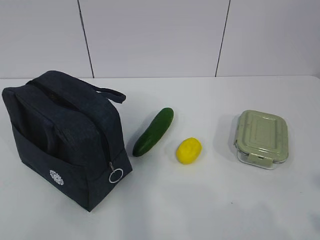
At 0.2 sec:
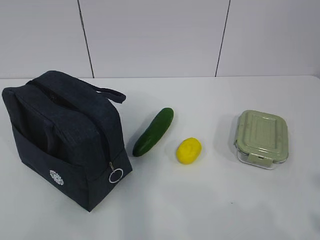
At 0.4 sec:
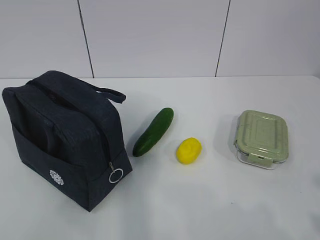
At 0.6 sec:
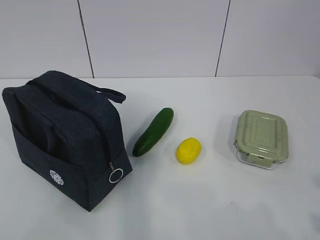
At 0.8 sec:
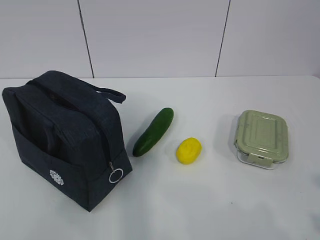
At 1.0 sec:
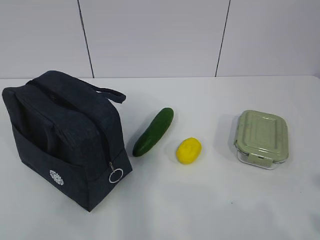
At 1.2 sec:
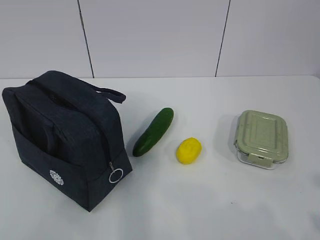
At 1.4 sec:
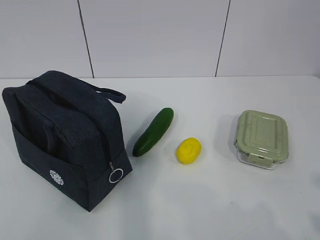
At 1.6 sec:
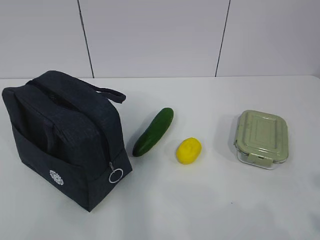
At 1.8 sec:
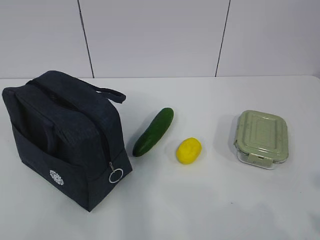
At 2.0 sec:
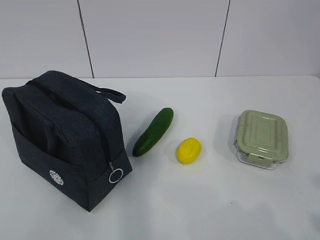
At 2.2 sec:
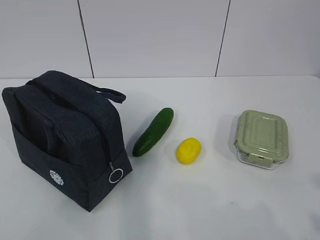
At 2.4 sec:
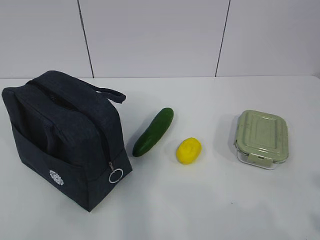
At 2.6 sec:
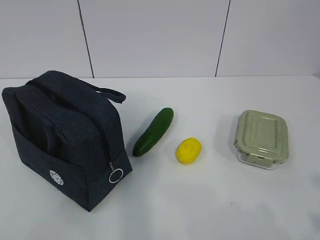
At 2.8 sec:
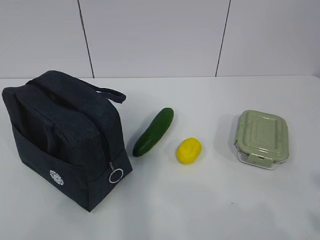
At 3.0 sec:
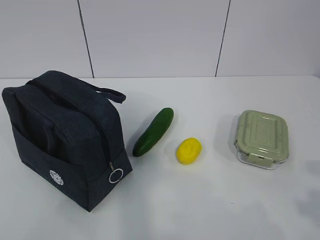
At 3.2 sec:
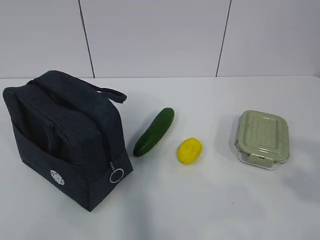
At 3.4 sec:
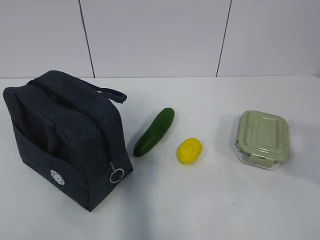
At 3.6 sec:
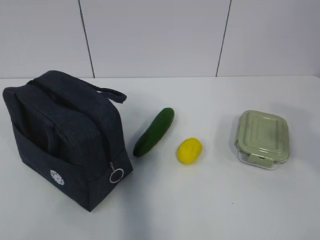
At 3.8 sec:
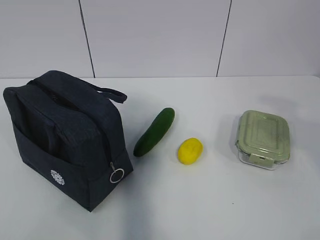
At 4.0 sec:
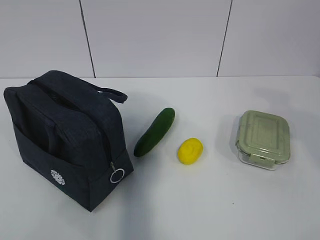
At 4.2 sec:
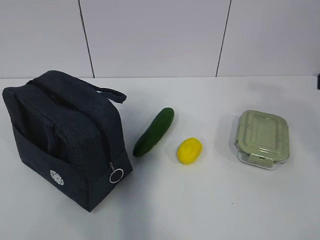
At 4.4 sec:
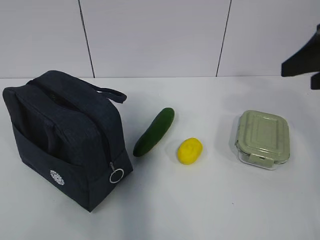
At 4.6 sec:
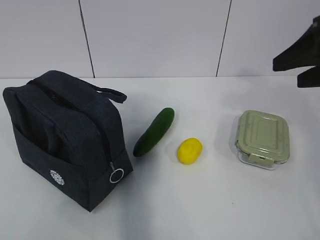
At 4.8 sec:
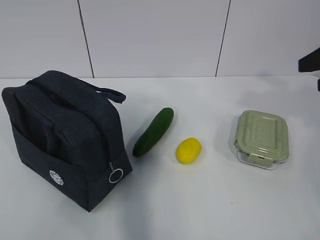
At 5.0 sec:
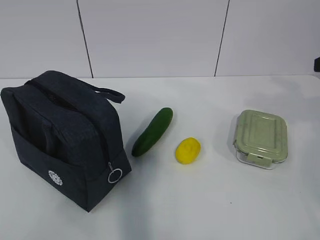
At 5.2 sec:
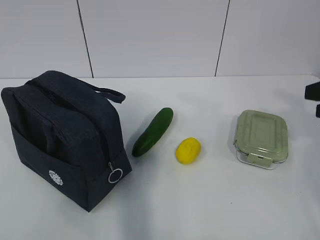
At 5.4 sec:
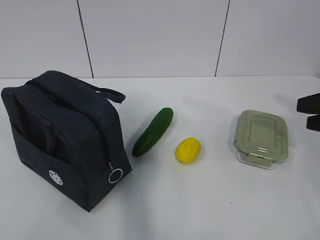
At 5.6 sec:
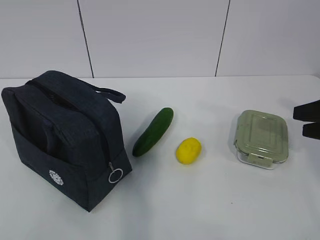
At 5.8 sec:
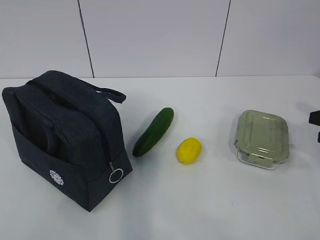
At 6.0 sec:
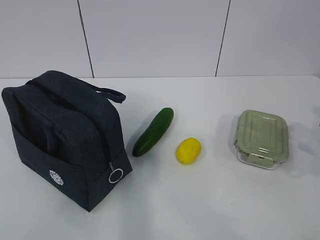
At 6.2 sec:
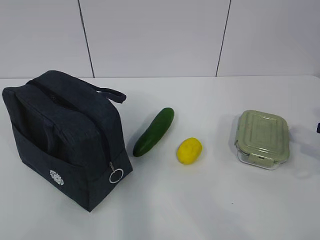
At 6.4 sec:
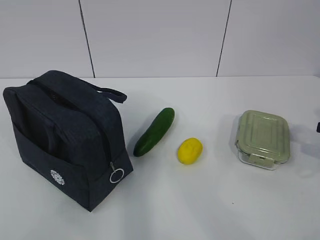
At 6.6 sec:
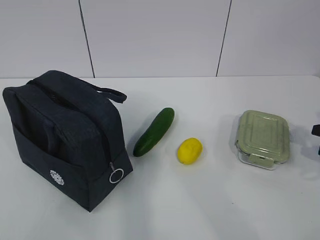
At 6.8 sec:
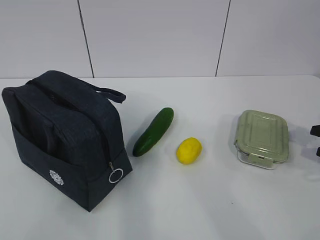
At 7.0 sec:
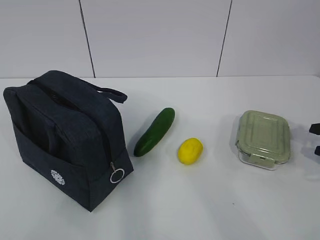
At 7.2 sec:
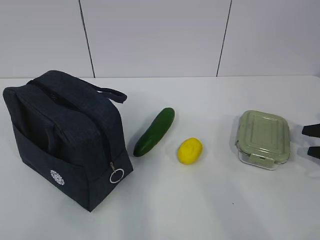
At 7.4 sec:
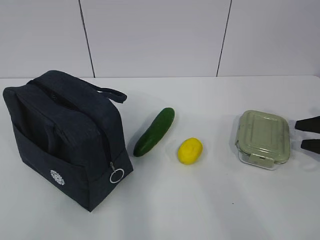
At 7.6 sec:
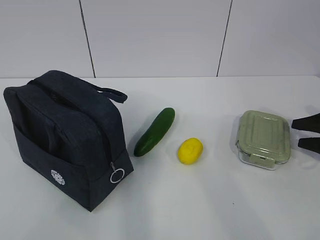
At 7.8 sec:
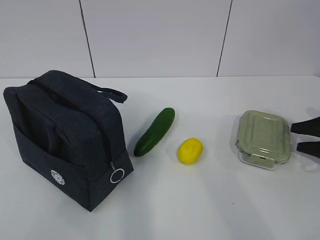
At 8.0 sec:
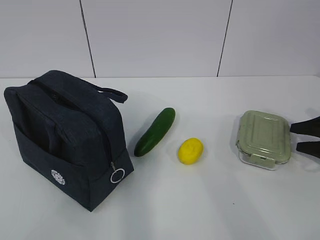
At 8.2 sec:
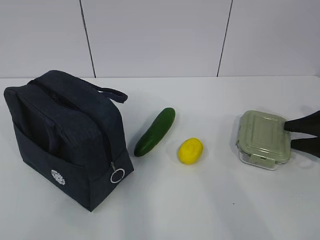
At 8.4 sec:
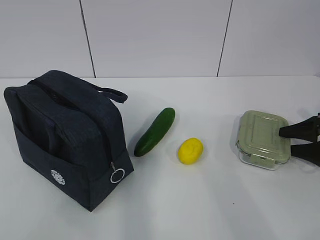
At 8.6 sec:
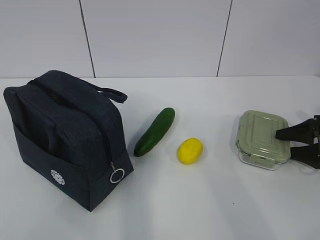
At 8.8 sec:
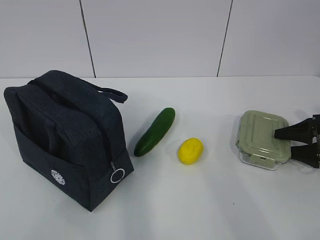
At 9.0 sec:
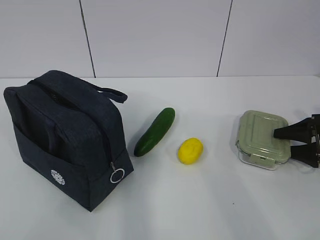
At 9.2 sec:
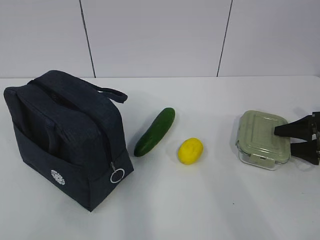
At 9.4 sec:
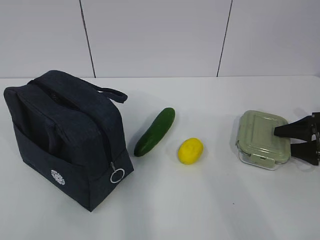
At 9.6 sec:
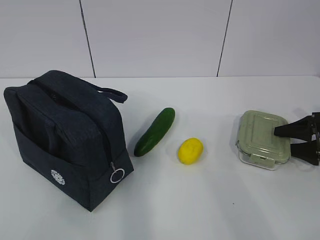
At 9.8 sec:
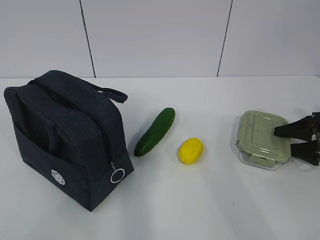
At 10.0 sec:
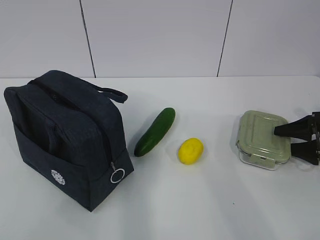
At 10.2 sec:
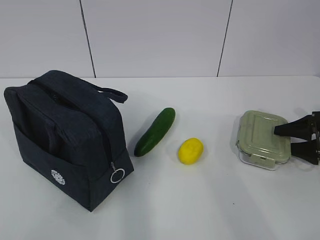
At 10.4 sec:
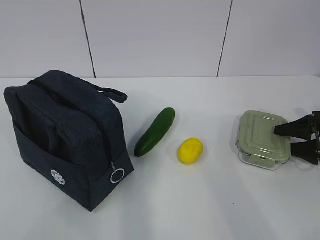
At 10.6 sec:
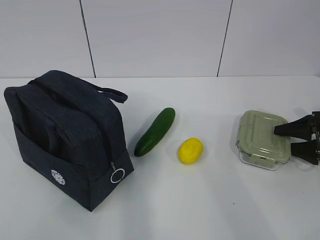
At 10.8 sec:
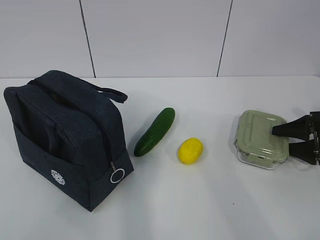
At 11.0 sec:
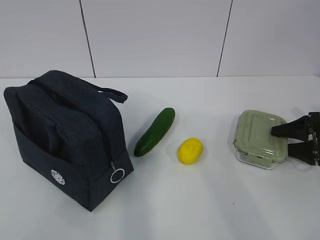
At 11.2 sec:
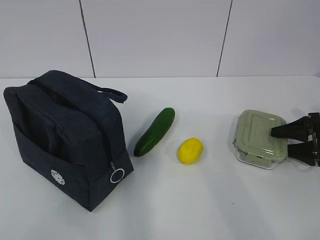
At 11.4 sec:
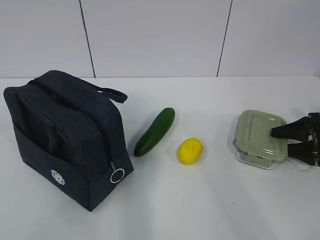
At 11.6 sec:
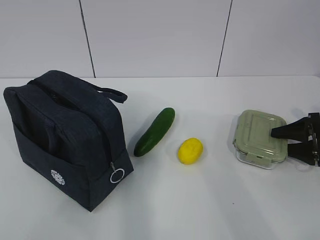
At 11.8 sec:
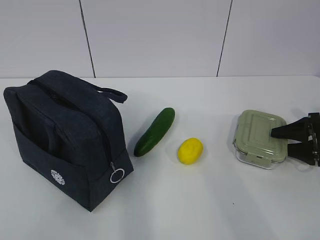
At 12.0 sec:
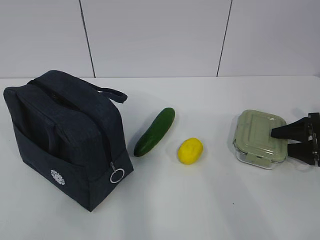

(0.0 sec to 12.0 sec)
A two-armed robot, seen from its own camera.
3.0 sec - 4.4 sec: The right gripper shifts about 25 cm forward.
4.4 sec - 6.0 sec: The right gripper shifts some 20 cm downward and to the right.
6.0 sec - 7.6 sec: The right gripper shifts about 10 cm forward and downward.
7.6 sec - 9.0 sec: There are only small adjustments of the grippers.
9.0 sec - 12.0 sec: Both grippers stay put.

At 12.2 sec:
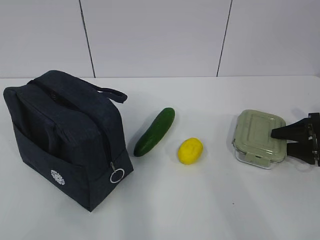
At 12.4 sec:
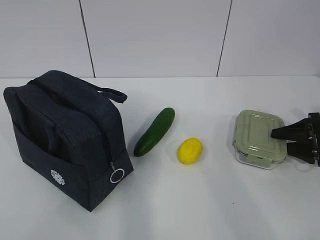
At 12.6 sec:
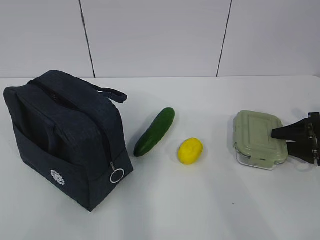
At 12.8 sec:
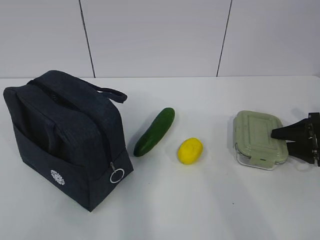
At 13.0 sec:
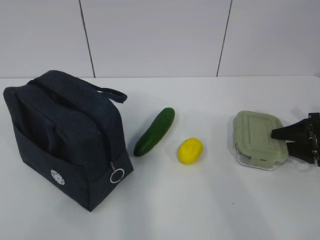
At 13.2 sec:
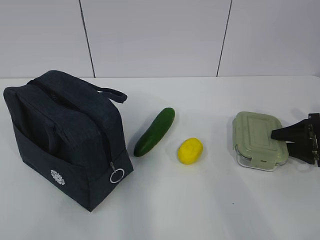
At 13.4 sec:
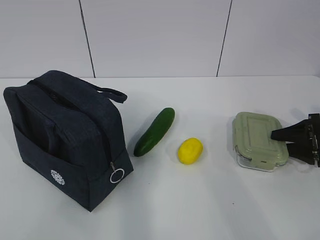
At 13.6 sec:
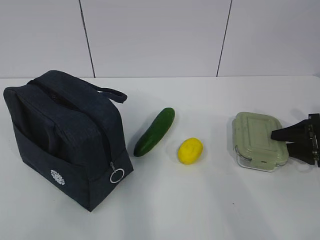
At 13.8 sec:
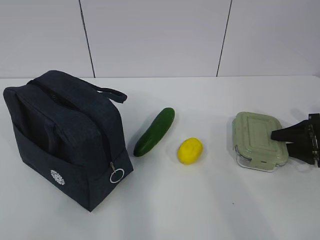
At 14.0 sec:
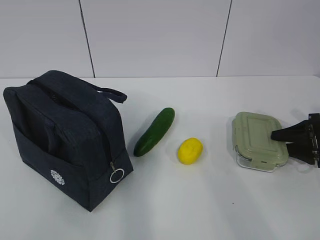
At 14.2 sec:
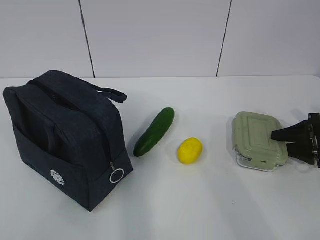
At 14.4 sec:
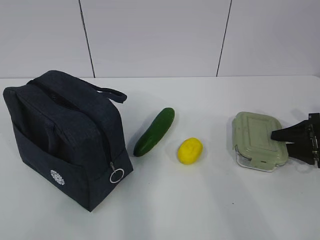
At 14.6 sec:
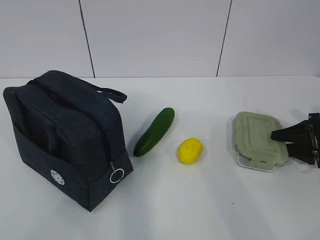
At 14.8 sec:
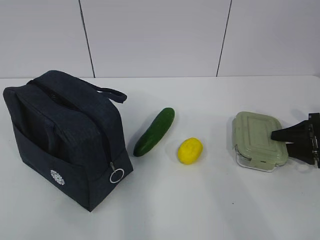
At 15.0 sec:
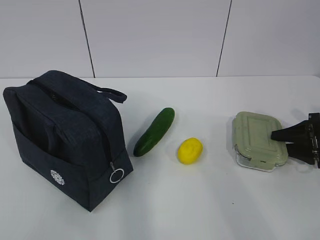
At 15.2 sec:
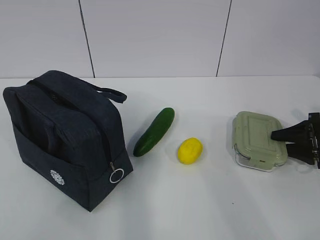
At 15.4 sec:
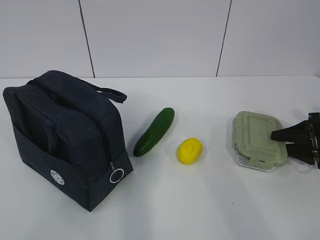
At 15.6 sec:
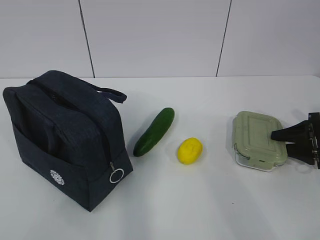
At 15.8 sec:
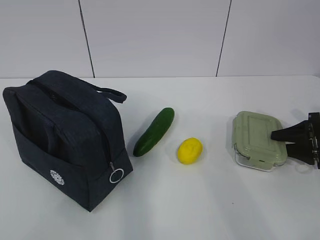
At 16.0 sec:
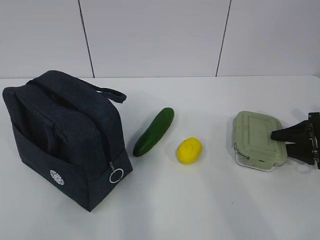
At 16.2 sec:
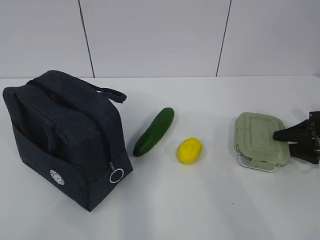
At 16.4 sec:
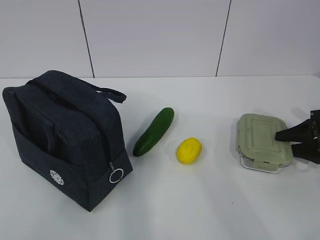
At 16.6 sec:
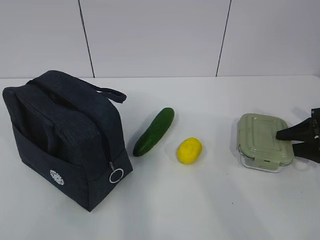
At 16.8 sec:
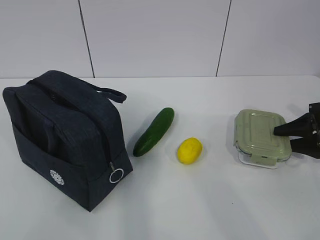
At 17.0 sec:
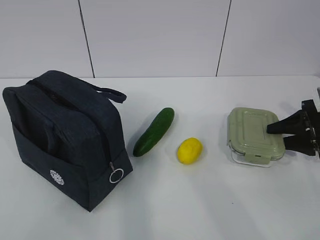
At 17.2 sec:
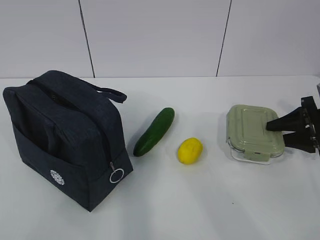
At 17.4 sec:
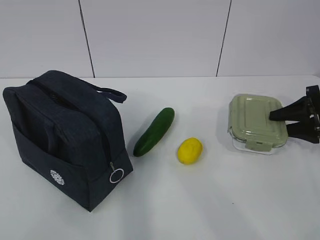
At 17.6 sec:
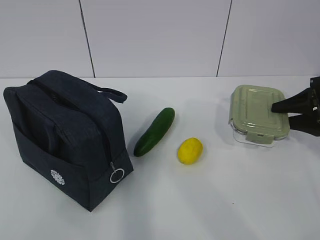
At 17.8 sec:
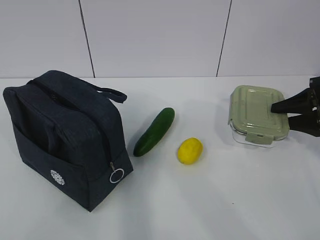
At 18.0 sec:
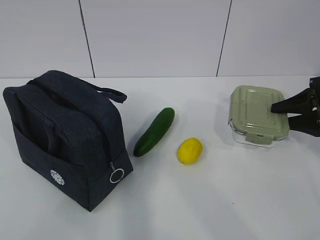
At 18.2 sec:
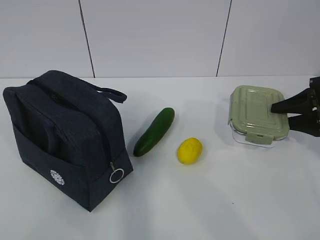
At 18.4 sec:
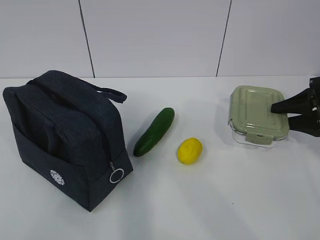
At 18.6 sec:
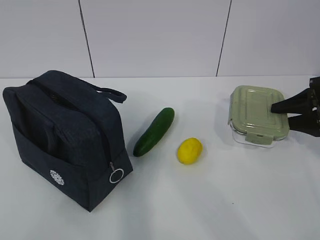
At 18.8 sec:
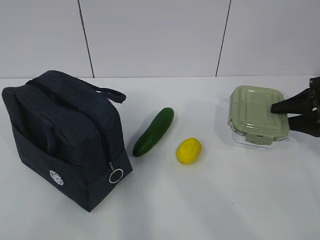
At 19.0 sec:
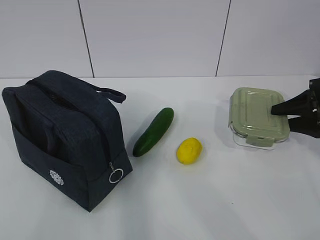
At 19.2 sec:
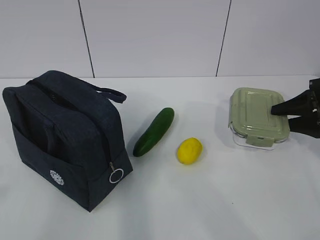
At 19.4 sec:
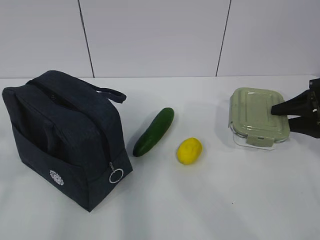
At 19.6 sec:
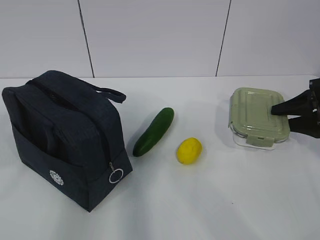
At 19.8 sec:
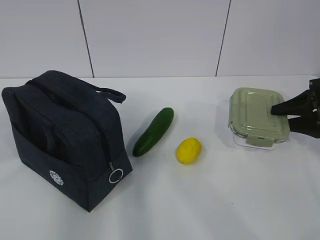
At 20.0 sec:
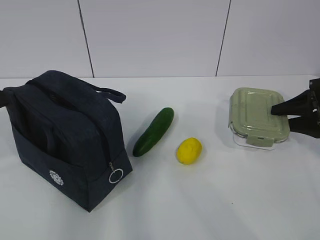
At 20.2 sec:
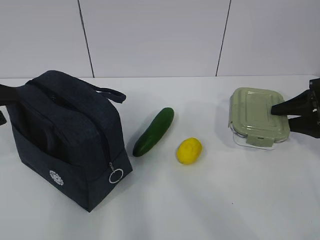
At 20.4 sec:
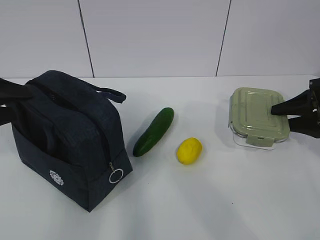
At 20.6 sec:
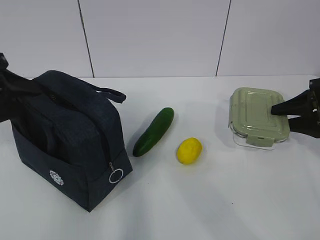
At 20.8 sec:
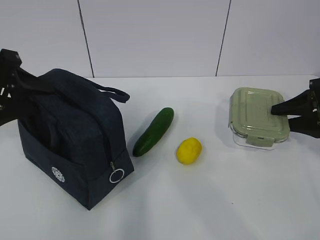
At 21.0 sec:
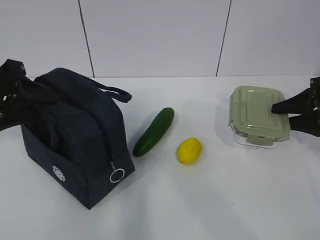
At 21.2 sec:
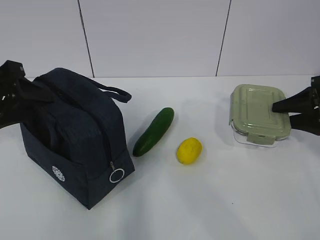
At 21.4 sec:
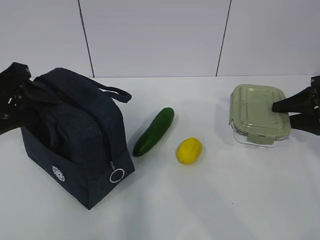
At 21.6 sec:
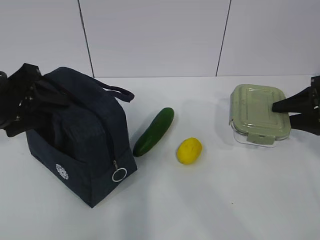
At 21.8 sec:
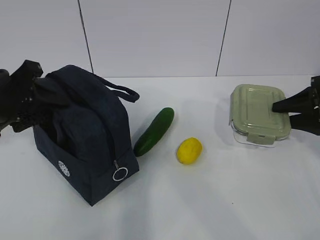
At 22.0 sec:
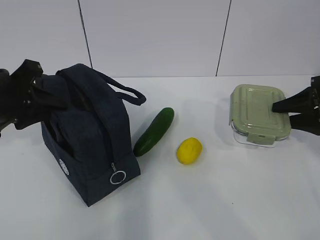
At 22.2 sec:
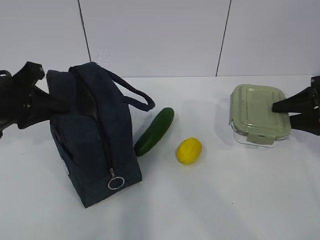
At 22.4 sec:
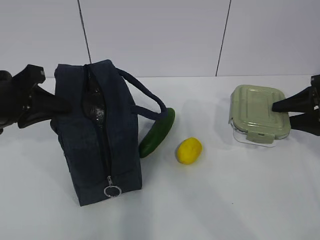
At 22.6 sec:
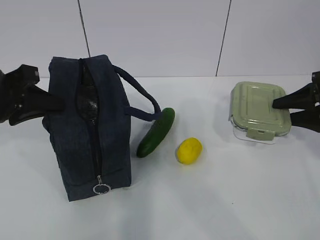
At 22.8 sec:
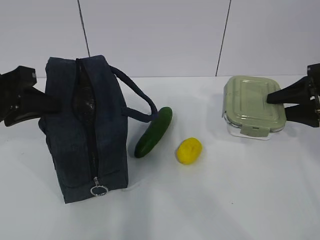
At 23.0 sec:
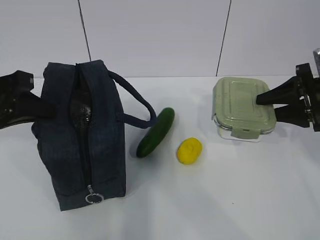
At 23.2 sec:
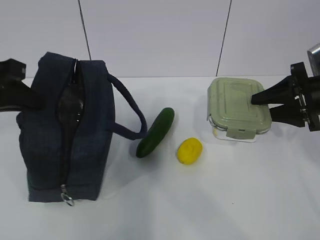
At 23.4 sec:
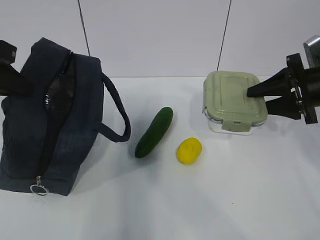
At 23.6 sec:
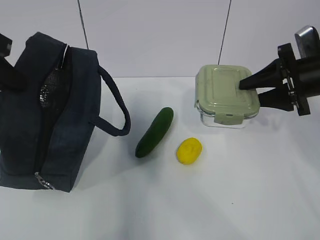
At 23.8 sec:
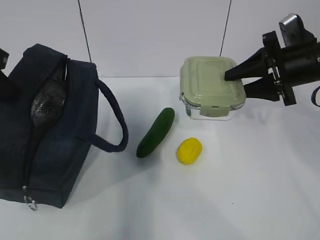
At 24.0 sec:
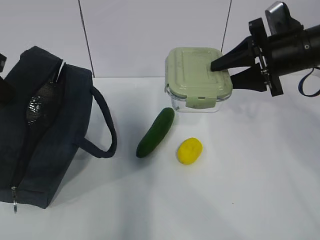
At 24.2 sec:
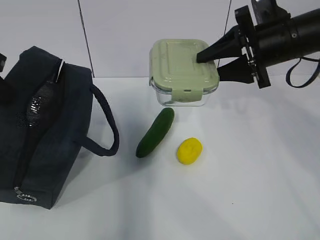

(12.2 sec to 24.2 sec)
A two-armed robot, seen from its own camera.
Step, 13.8 sec - 21.6 sec: Grab the lunch bag with your left hand.
12.2 sec - 15.2 sec: The two grippers keep their place.
15.2 sec - 16.6 sec: The grippers stay close to where they were, moving slightly.
16.6 sec - 18.2 sec: The right gripper shifts roughly 5 cm upward.
18.2 sec - 19.8 sec: The left gripper shifts approximately 15 cm forward, and opens its fingers.
19.8 sec - 21.2 sec: The left gripper heads forward, covering about 10 cm.
21.2 sec - 22.6 sec: The left gripper closes its fingers.
22.6 sec - 24.2 sec: The left gripper travels upward by some 5 cm; the right gripper is displaced to the left and upward by about 15 cm.
